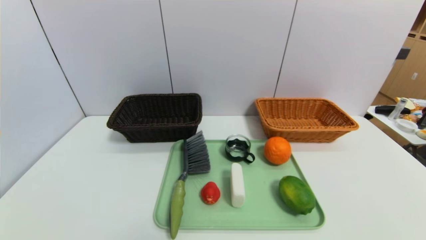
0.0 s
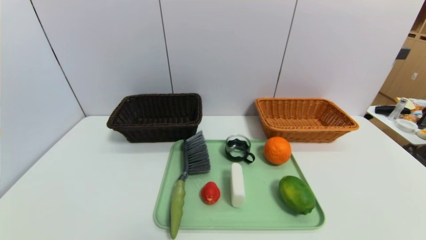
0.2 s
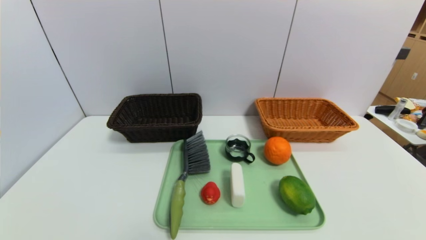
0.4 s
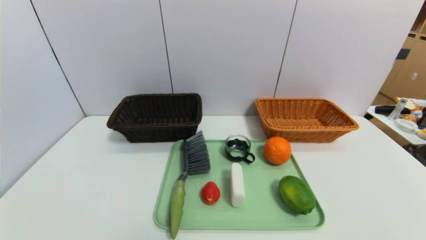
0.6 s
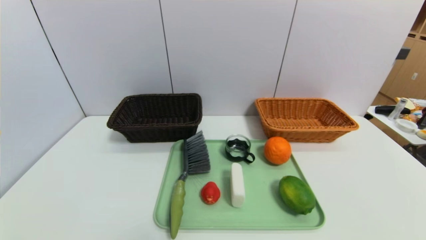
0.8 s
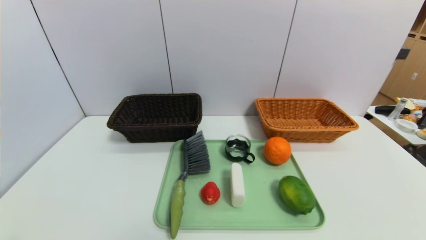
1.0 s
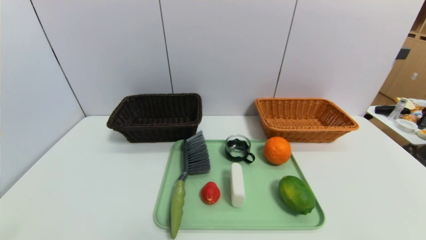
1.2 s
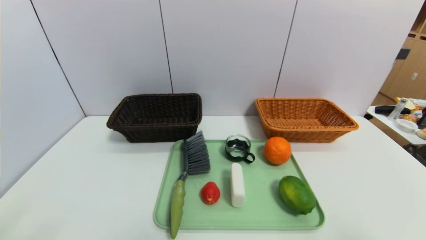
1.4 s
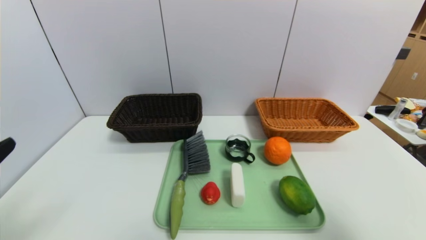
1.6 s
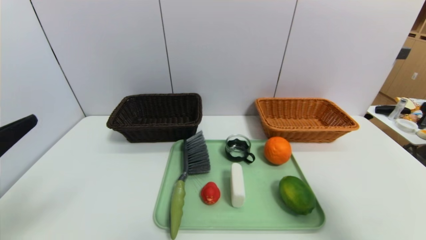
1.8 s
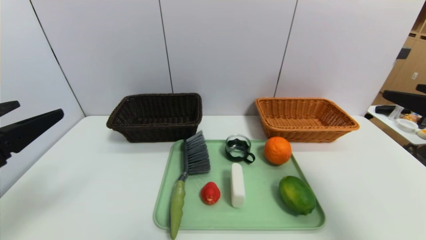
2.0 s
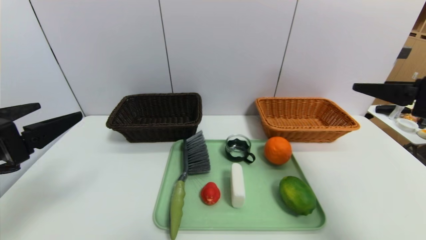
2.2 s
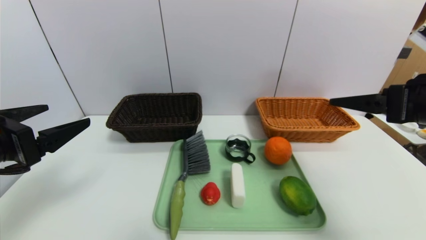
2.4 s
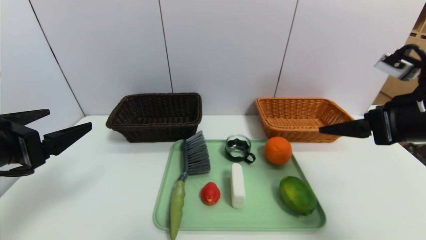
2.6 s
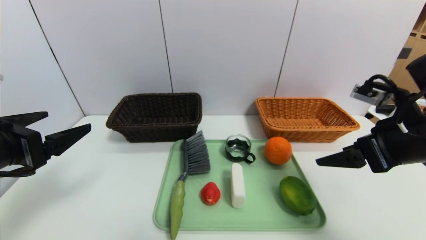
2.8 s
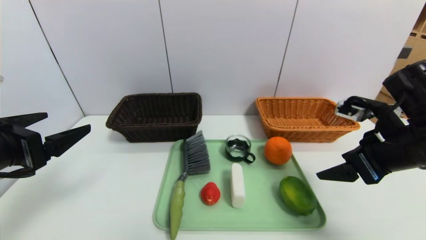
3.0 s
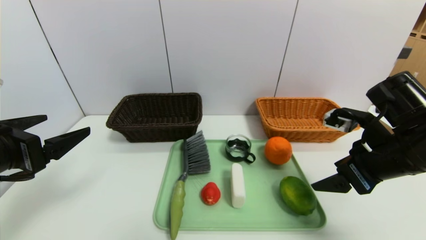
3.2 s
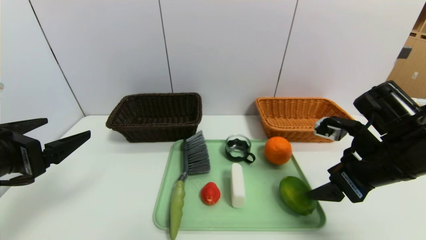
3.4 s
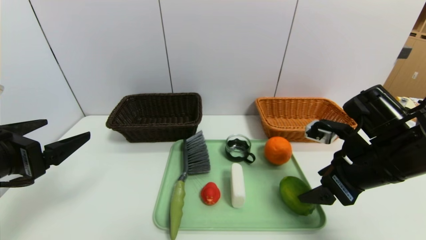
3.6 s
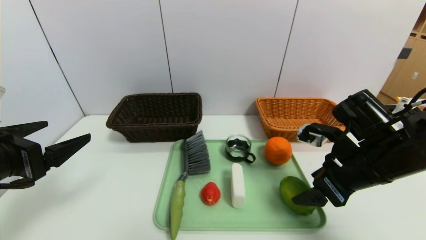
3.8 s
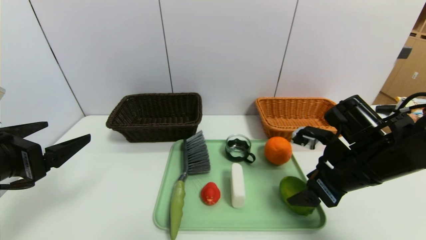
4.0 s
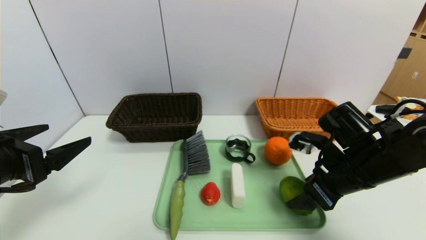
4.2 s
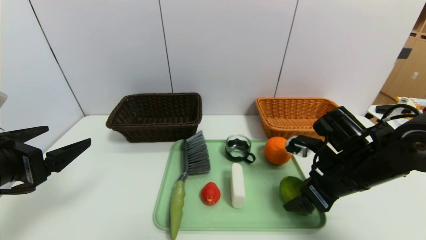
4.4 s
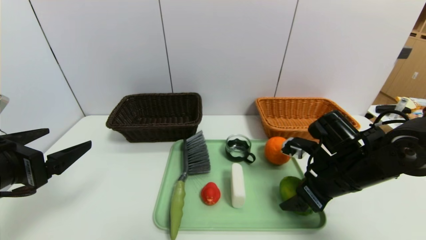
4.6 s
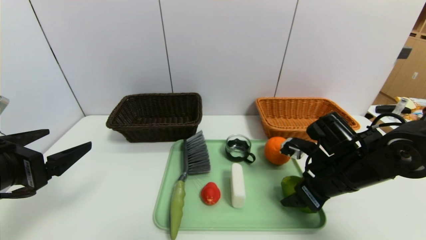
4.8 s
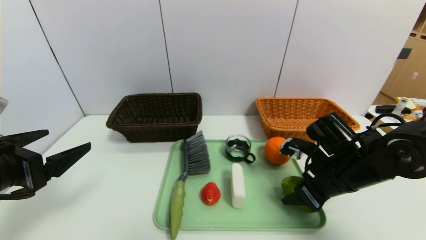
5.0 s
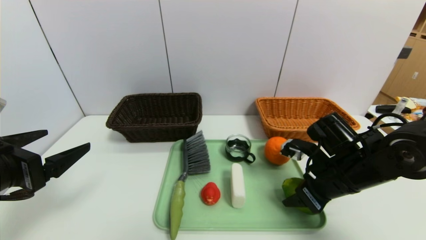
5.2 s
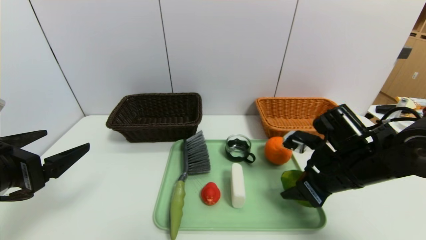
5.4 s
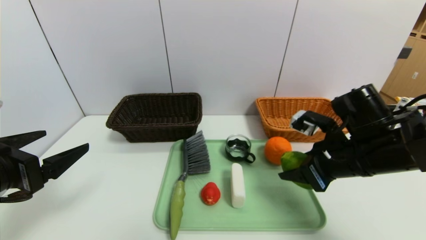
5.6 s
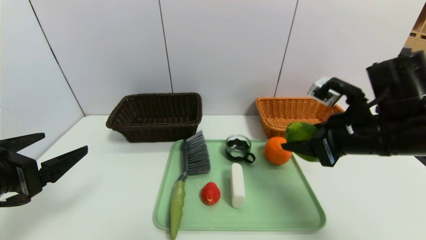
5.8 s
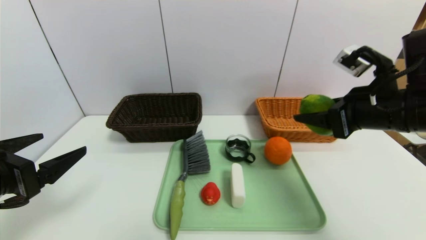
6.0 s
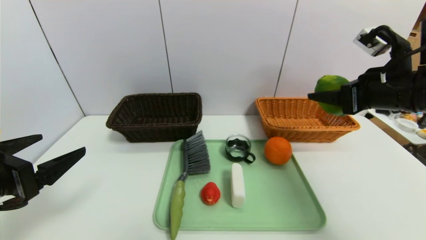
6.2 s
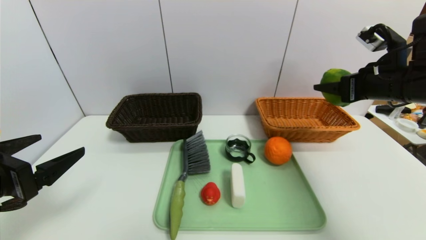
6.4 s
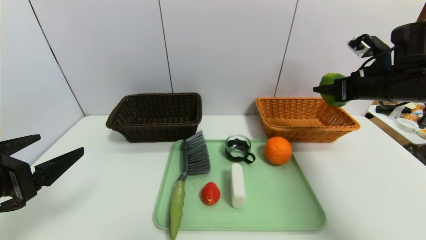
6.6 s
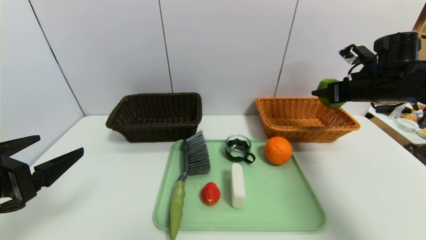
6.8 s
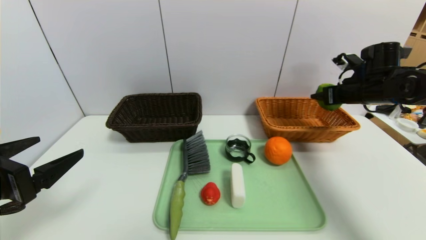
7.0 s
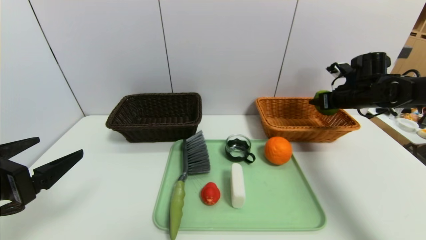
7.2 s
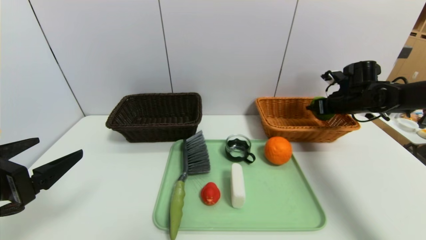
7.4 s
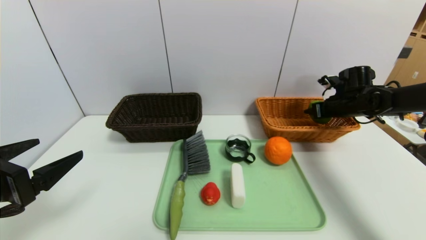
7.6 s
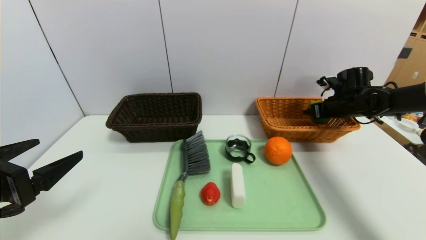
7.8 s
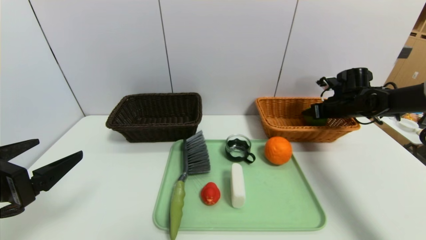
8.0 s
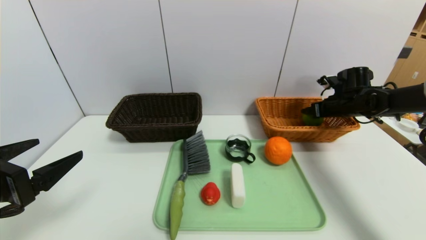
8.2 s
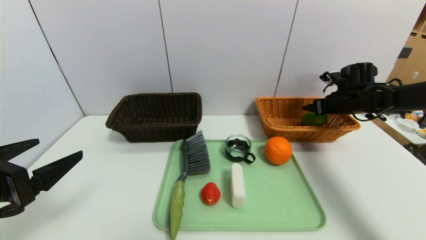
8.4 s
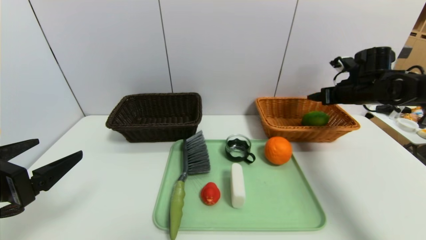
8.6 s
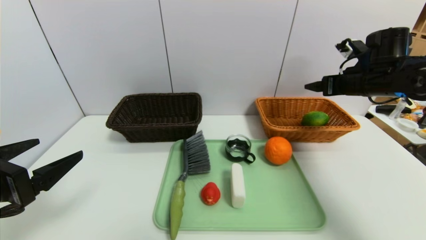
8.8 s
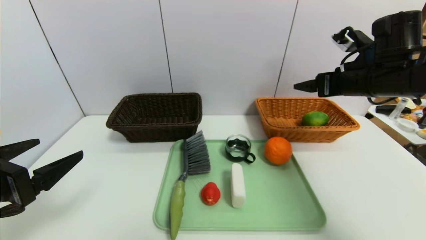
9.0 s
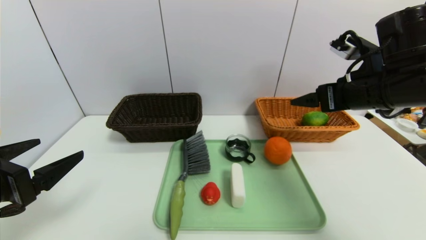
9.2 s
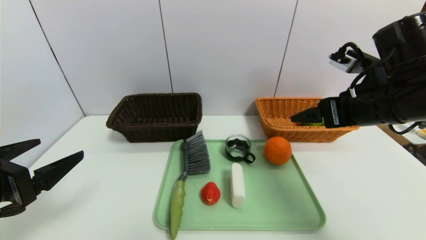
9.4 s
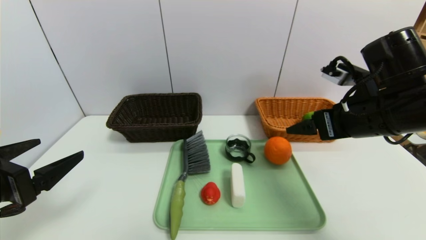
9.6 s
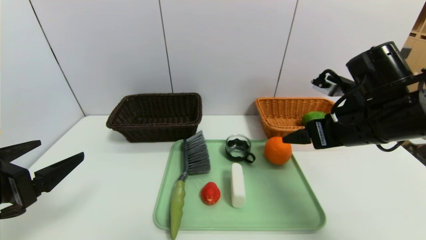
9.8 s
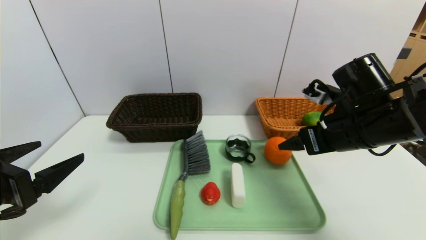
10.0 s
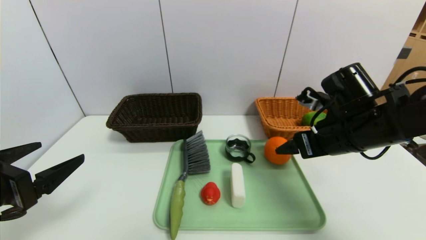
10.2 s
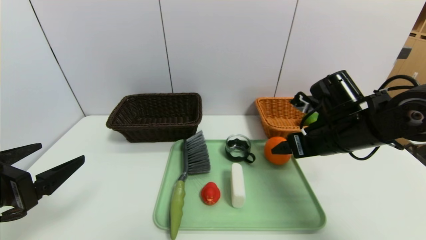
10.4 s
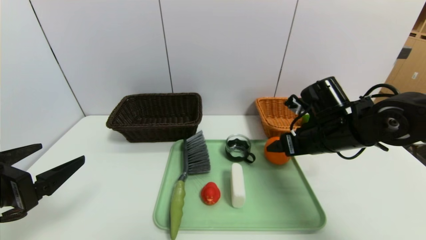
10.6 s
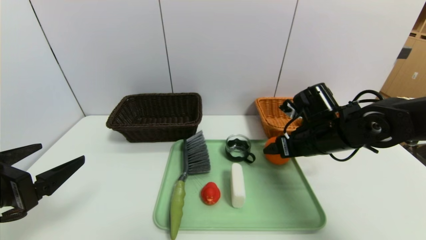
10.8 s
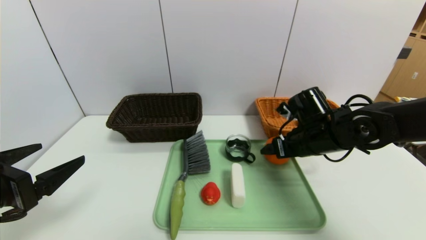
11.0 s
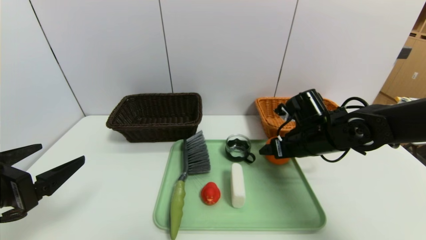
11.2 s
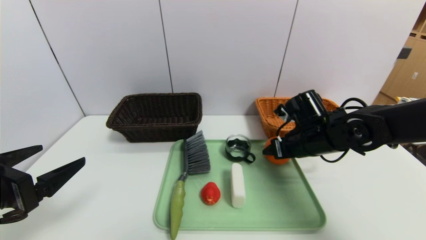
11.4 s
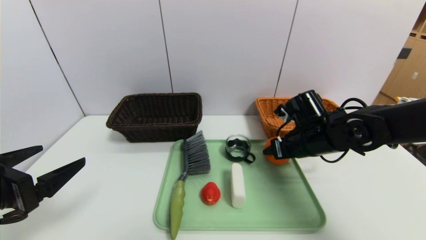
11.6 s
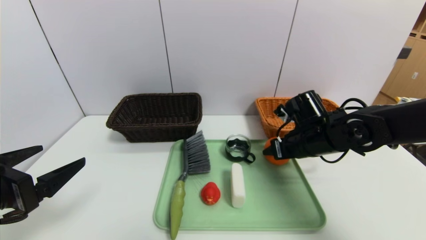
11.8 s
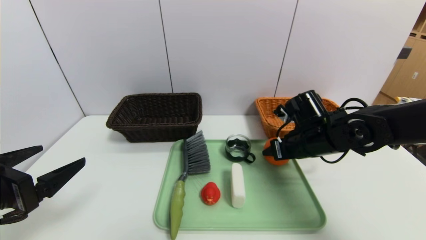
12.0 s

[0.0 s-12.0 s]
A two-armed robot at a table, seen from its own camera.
Task of the whole recording: place the food in the right basket with the right gripper, and place the non food items in the left basket with the left gripper.
Step, 0.0 to 9.2 s: Grasp the lime and put it in the right basket.
0.0 to 1.6 s: The two grippers go some 20 cm upward.
1.6 to 3.0 s: The right gripper shifts approximately 15 cm forward. The left gripper heads forward, covering about 10 cm.
3.0 to 4.4 s: The right gripper heads downward, covering some 10 cm.
4.4 to 6.0 s: The right gripper is displaced upward by about 10 cm, and closes its fingers.
6.0 to 7.6 s: The right gripper heads forward, downward and to the right, covering roughly 25 cm.
7.6 to 9.0 s: The right gripper is displaced backward, upward and to the left by some 20 cm, and opens its fingers.
9.0 to 10.4 s: The right gripper moves downward and to the left, roughly 10 cm.
10.4 to 12.0 s: The right gripper shifts by some 5 cm, and closes its fingers.

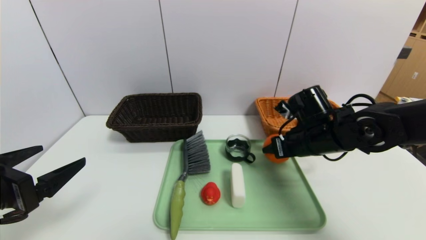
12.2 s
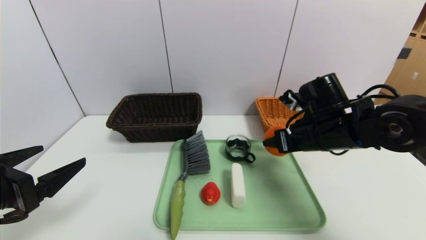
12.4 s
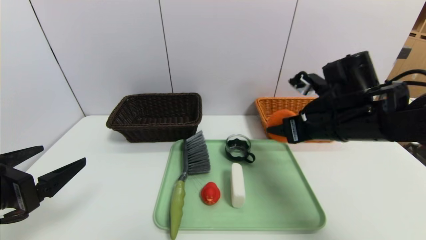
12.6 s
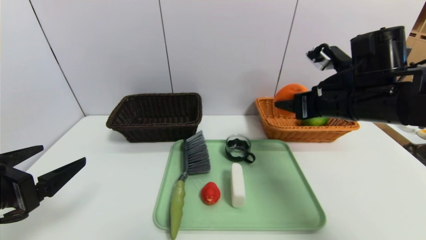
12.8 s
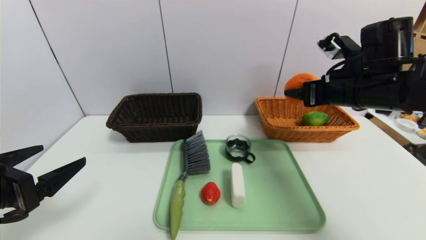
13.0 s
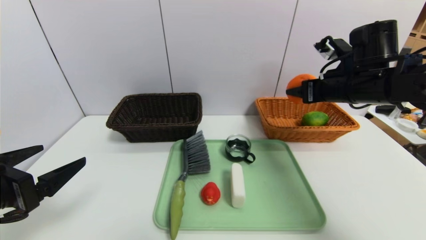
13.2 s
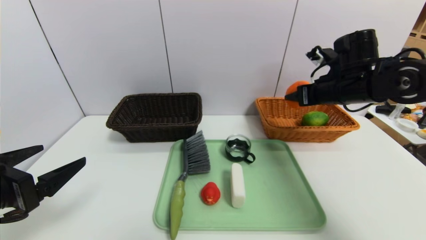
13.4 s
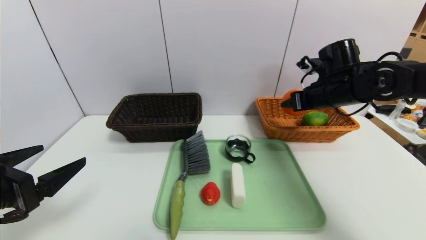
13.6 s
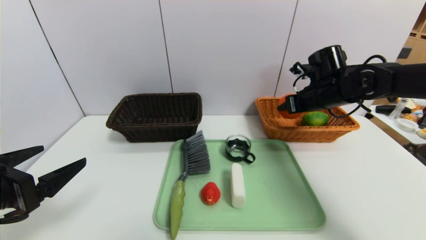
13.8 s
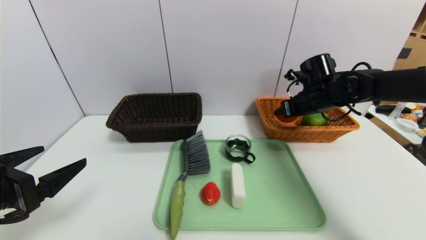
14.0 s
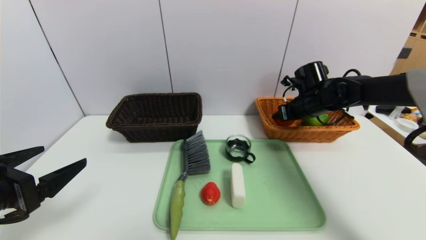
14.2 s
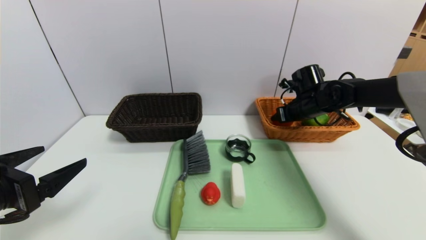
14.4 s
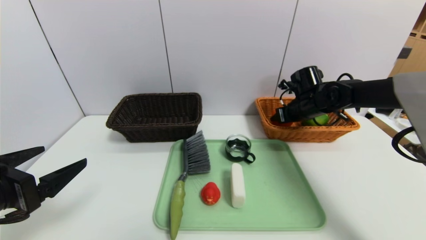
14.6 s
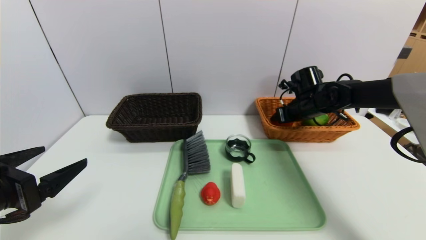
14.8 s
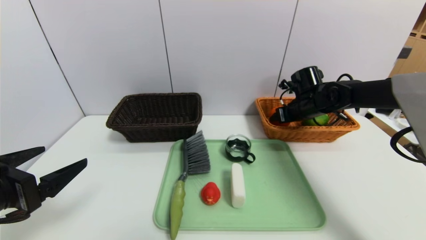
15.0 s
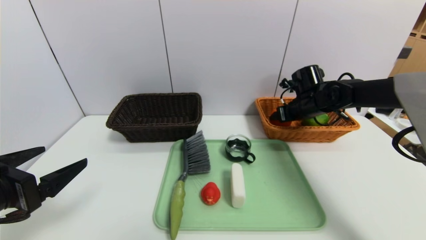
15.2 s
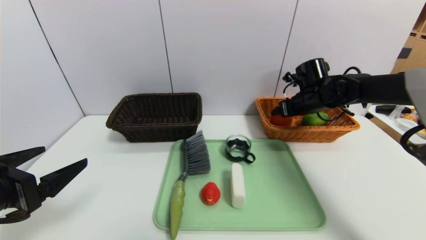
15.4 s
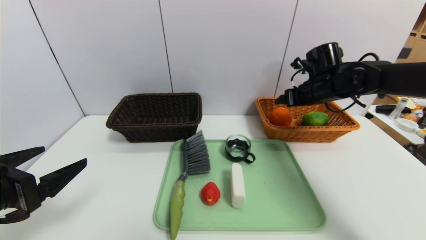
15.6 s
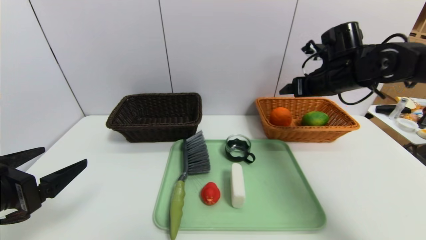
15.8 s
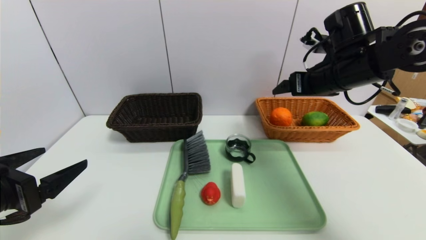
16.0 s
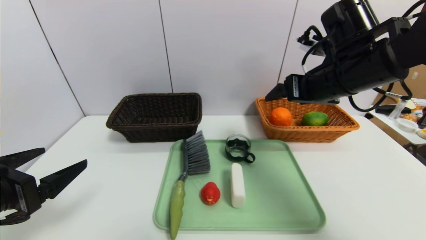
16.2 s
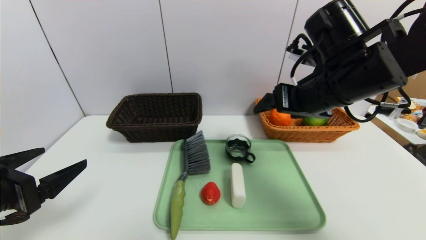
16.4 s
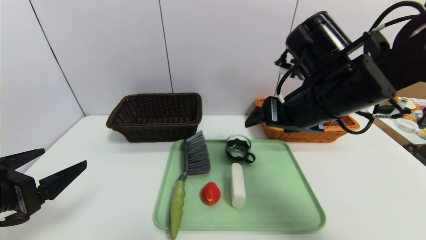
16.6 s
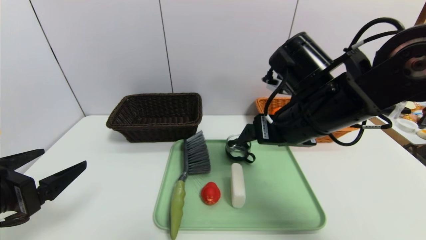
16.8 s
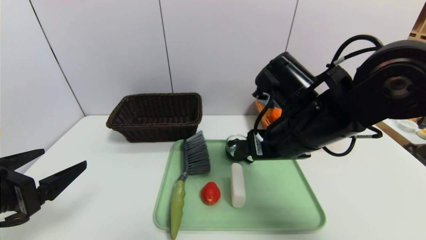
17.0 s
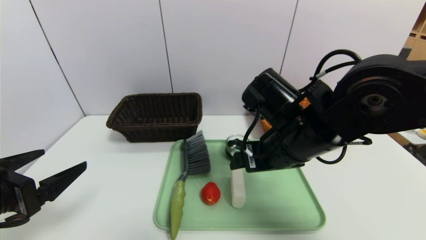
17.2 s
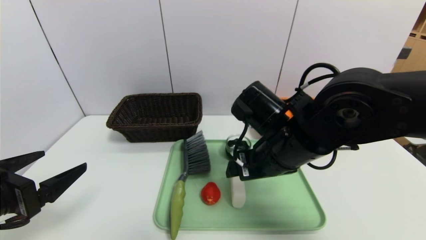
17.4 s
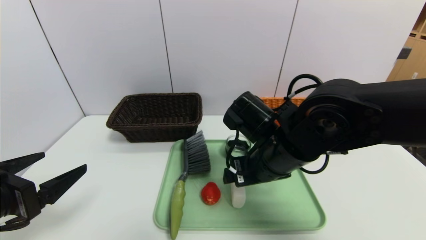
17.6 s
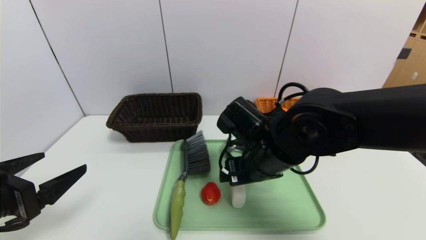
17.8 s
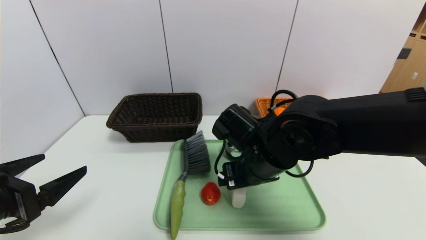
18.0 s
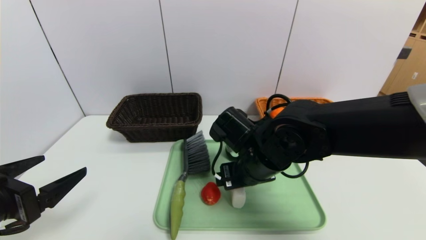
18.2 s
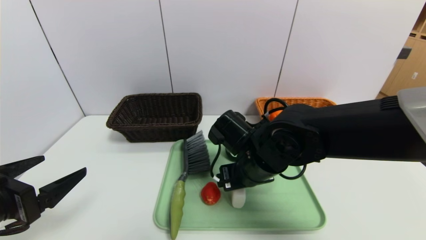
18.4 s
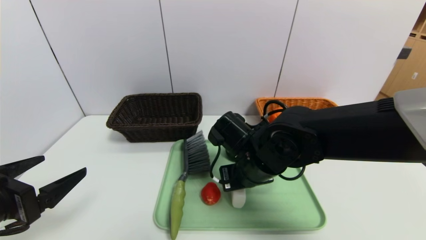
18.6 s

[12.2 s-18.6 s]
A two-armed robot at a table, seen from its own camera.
Task of the whole recording: place the food in the right basket with the right gripper, and place the non food items in the left basket with the left gripper.
Step, 12.2 to 15.8 s: Grasp the orange and put it in the right basket.
12.2 to 13.8 s: The right gripper moves forward, to the right and upward, roughly 10 cm.
13.8 to 15.4 s: The right gripper opens.
15.4 to 17.0 s: The right gripper is displaced backward and to the left by some 25 cm.
17.0 to 18.6 s: The right gripper goes some 10 cm downward and to the left, and closes its fingers.
